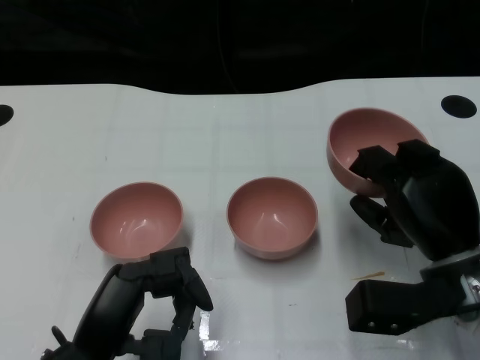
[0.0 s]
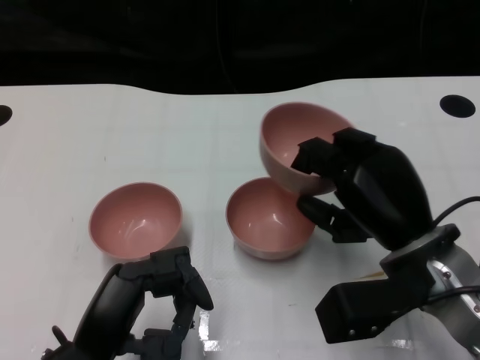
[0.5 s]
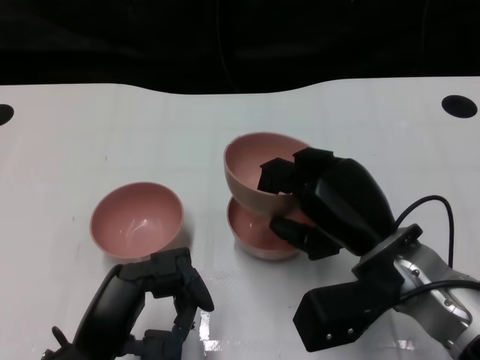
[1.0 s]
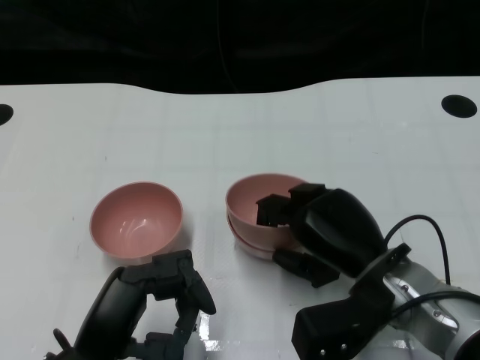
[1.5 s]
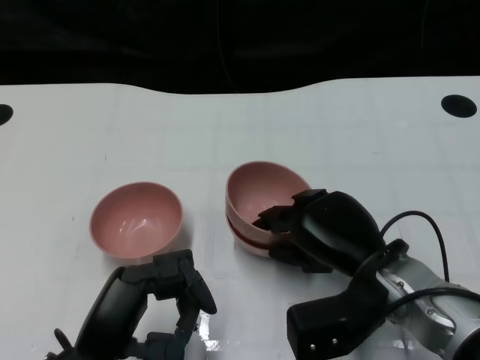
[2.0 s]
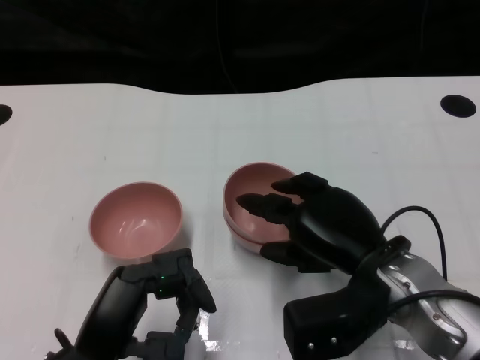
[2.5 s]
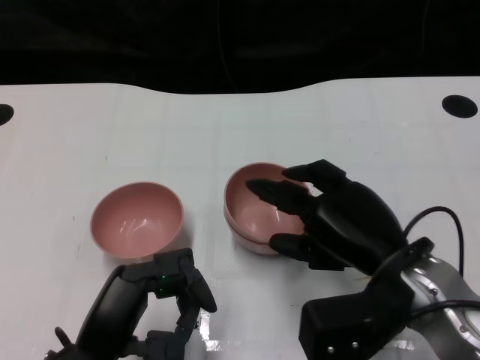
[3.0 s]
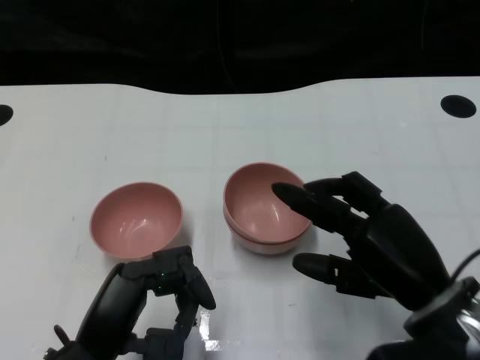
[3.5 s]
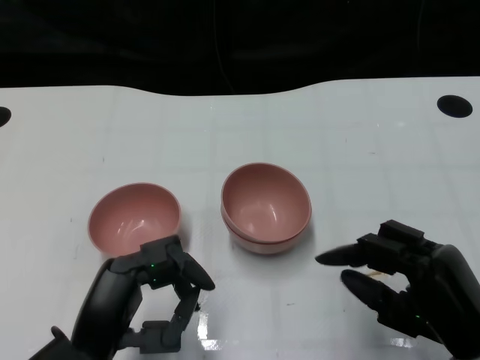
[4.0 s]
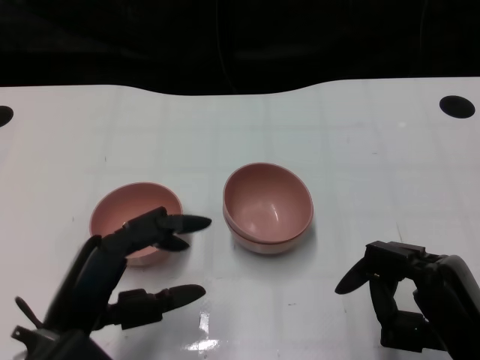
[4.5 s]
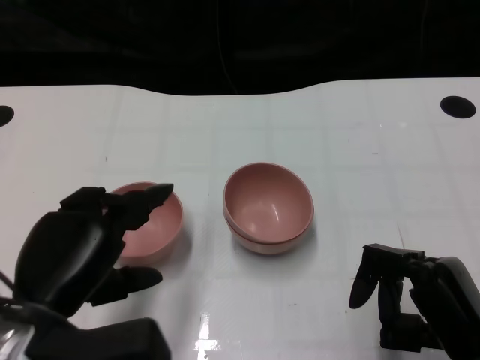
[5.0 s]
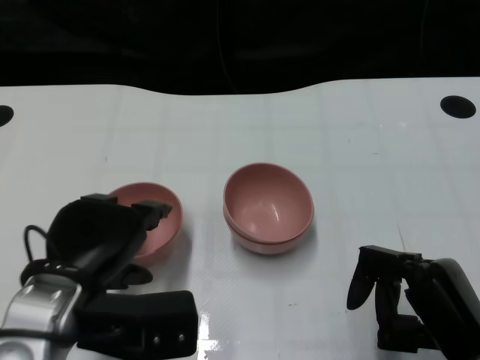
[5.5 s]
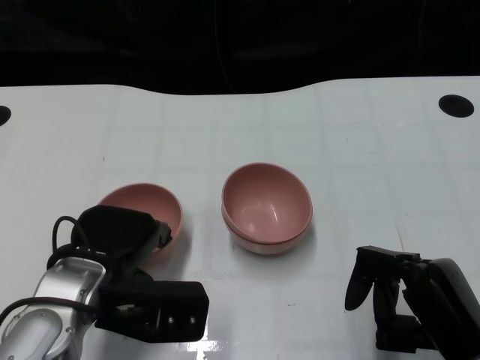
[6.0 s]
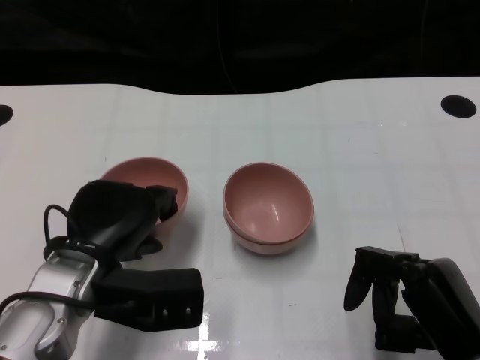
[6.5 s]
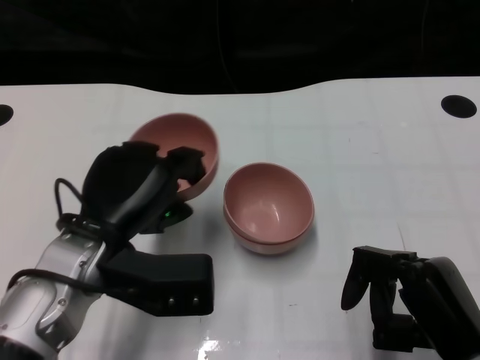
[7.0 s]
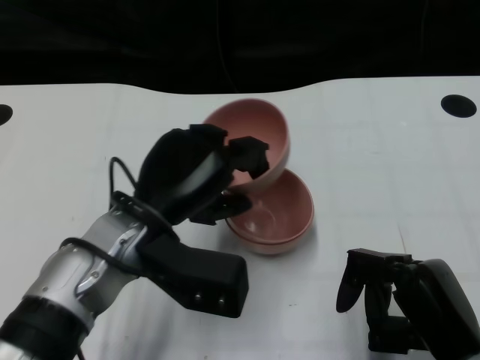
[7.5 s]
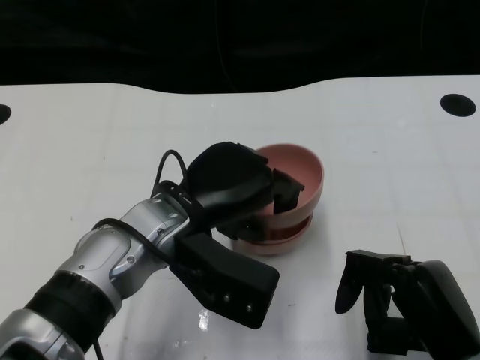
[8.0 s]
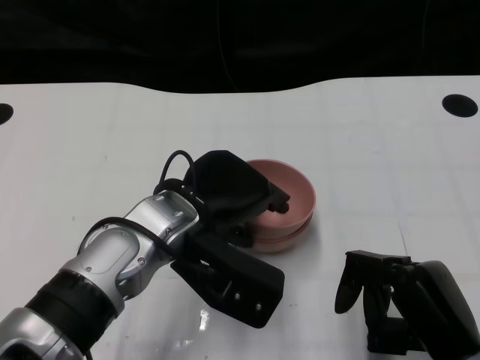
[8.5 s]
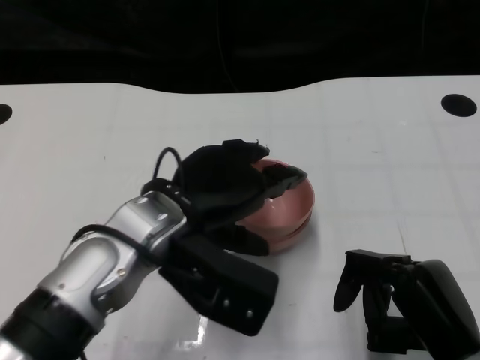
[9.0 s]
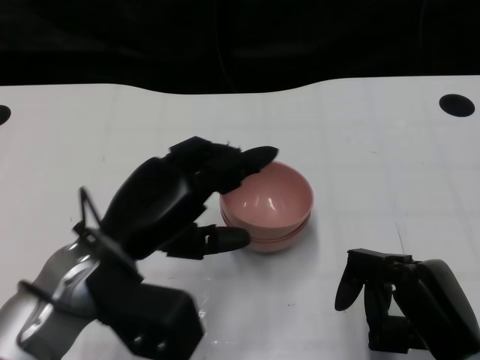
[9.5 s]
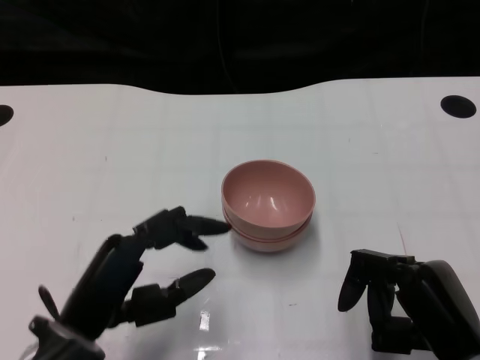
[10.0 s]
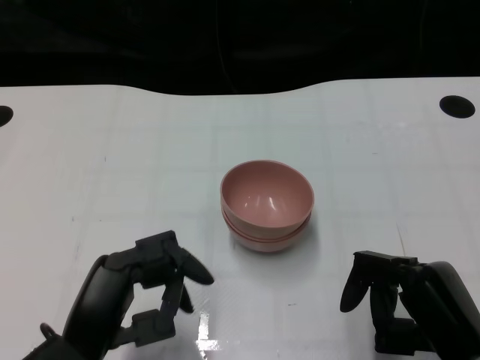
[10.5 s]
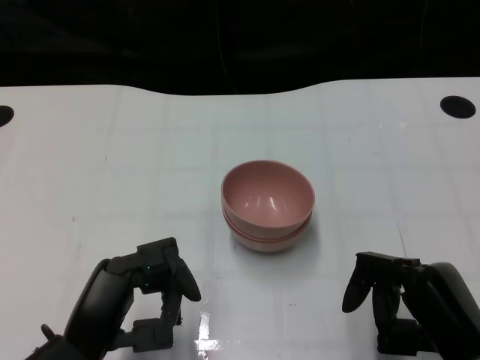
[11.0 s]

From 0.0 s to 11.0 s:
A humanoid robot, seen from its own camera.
Task of the whole recording: Pick up the bowl on one side of the table and place it on top of the middle bowl, then pick up the bowl on the other side of the table and place it on top of the middle bowls.
Step, from 0.0 s to 3.0 s: Place the bowl on the right onto the bowl in the middle with right gripper.
Step, from 3.5 s to 6.0 s: Grasp the bowl on the left with the left gripper.
Step, from 6.5 s to 9.0 s: Place the bowl on the left onto the bowl in the middle with left gripper.
From 0.0 s to 2.0 s: The right hand goes approximately 5 cm to the left.
From 2.0 s to 3.5 s: The right hand ends up roughly 5 cm from where it was.
From 3.5 s to 5.5 s: The left hand goes some 5 cm upward; the right hand moves approximately 5 cm.
From 5.5 s to 7.5 s: The left hand goes some 10 cm to the right and forward.
From 9.0 s to 11.0 s: The left hand moves backward, downward and to the left, approximately 15 cm.
